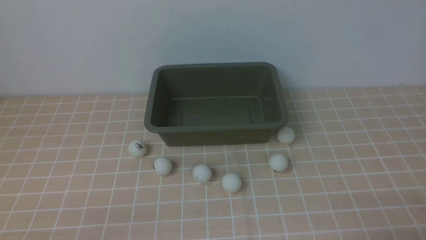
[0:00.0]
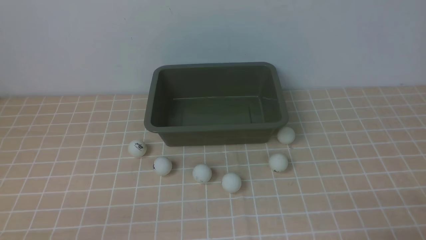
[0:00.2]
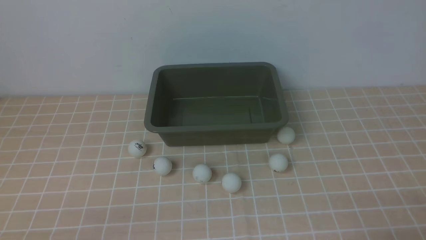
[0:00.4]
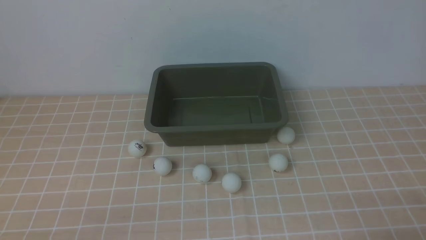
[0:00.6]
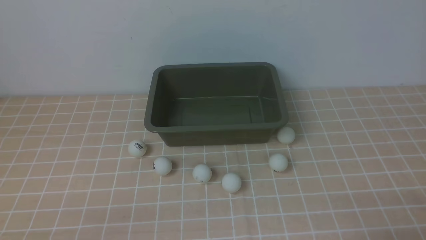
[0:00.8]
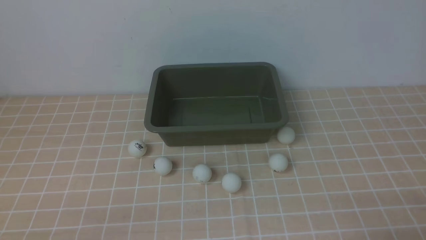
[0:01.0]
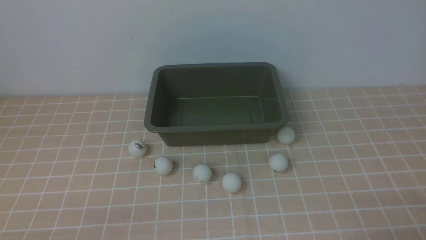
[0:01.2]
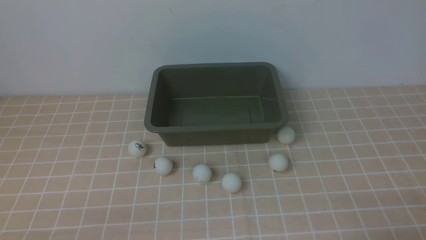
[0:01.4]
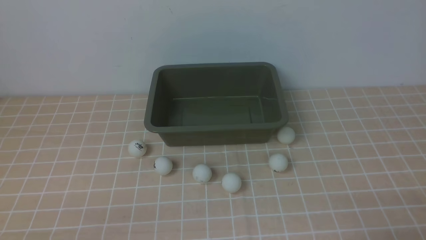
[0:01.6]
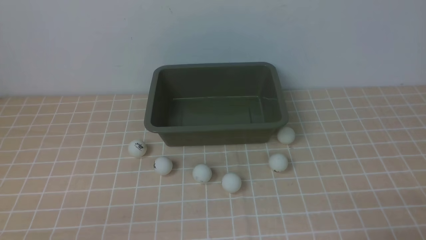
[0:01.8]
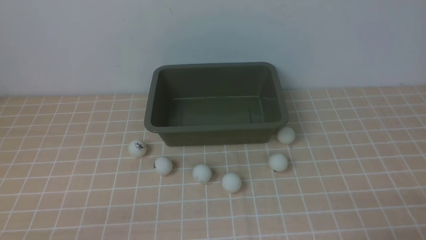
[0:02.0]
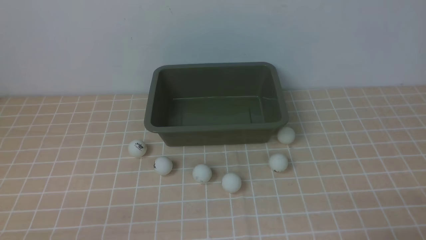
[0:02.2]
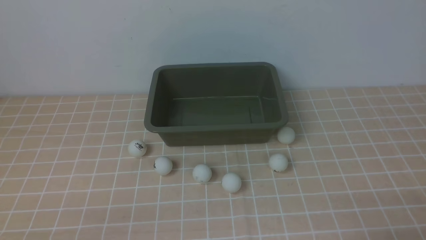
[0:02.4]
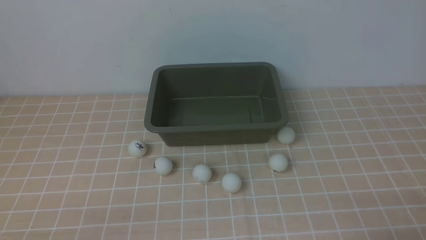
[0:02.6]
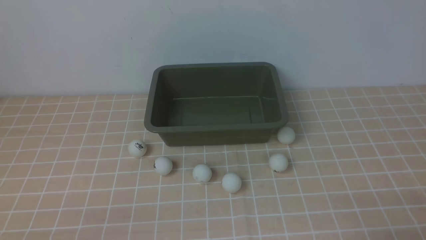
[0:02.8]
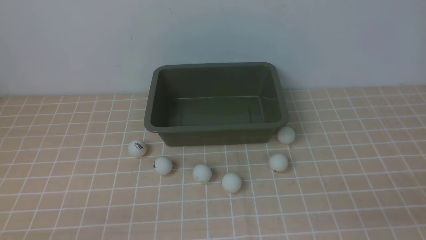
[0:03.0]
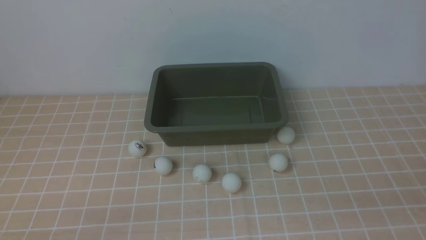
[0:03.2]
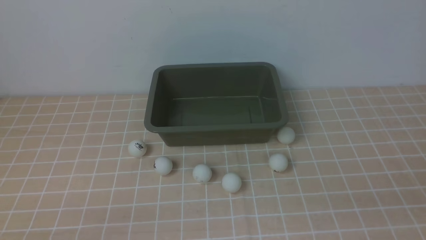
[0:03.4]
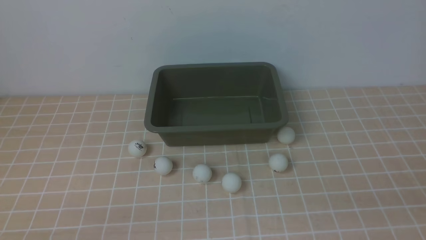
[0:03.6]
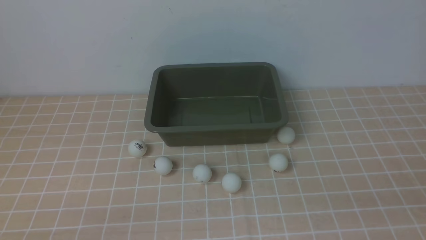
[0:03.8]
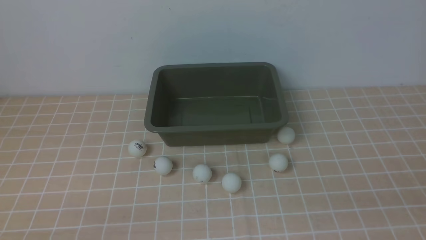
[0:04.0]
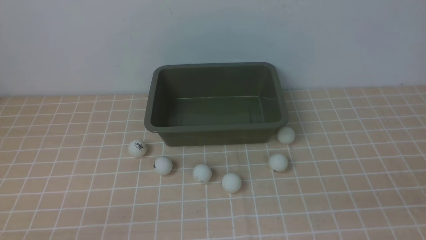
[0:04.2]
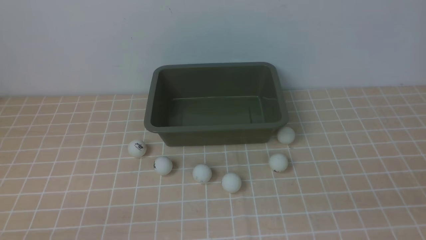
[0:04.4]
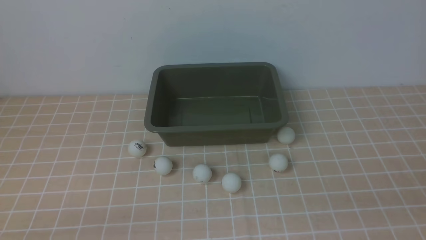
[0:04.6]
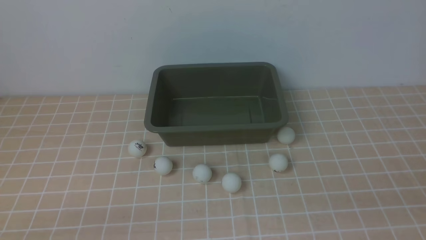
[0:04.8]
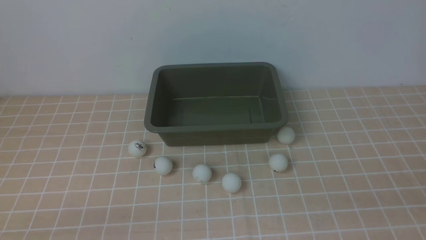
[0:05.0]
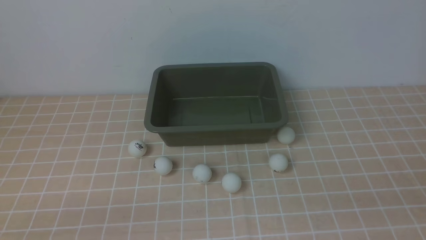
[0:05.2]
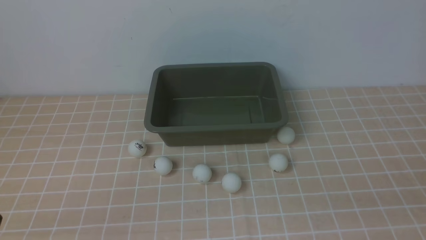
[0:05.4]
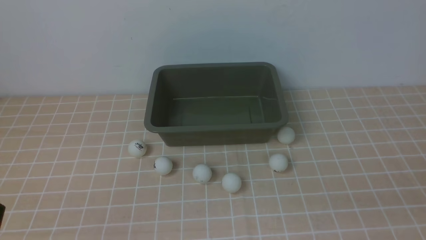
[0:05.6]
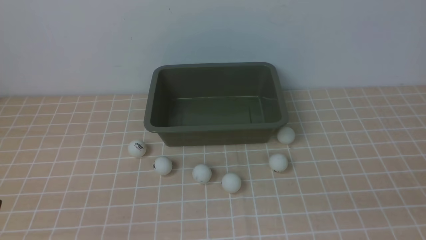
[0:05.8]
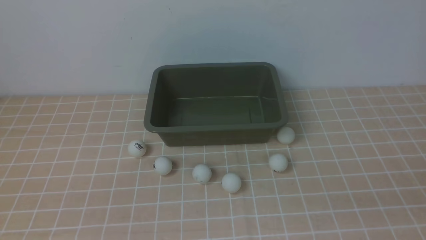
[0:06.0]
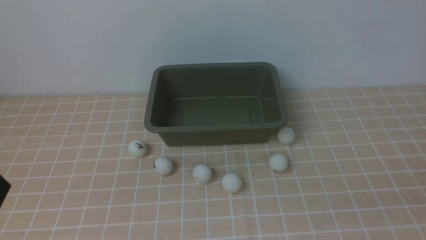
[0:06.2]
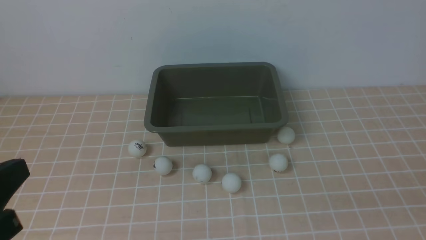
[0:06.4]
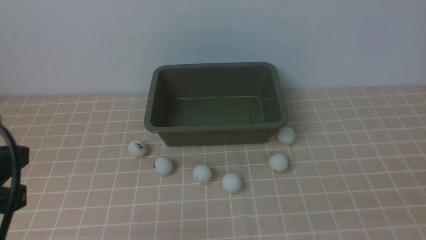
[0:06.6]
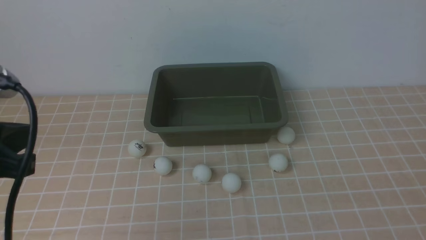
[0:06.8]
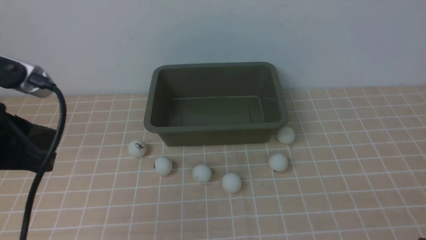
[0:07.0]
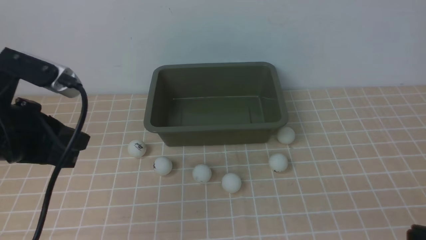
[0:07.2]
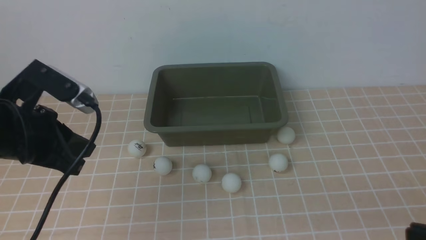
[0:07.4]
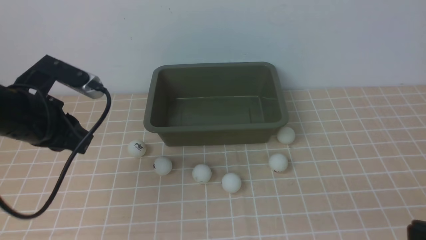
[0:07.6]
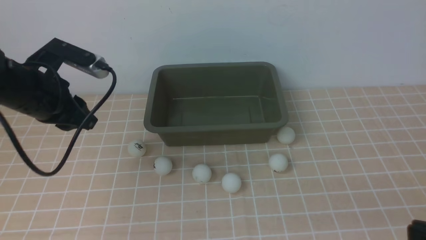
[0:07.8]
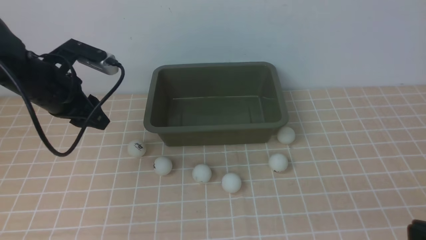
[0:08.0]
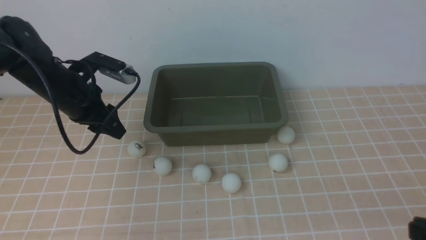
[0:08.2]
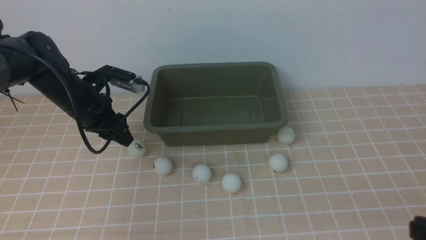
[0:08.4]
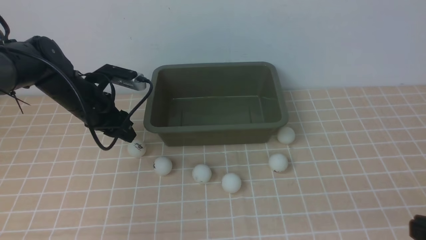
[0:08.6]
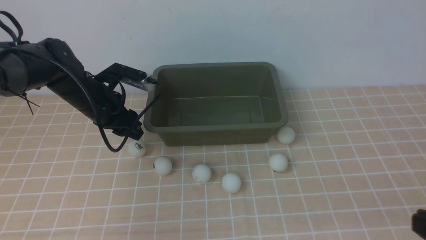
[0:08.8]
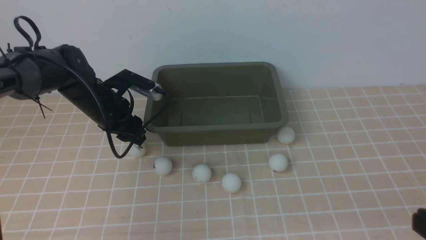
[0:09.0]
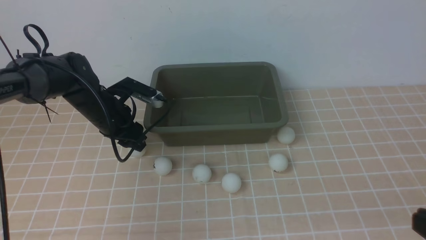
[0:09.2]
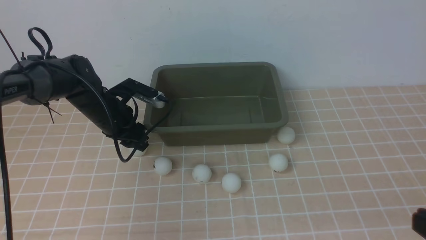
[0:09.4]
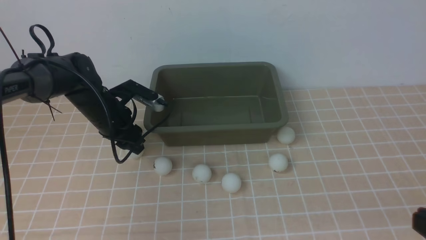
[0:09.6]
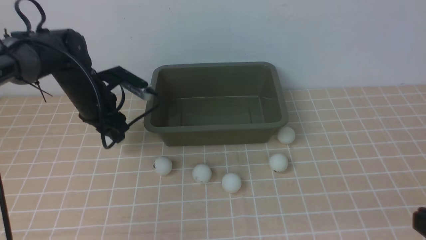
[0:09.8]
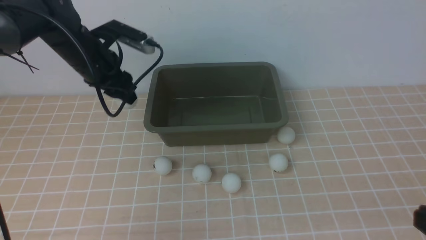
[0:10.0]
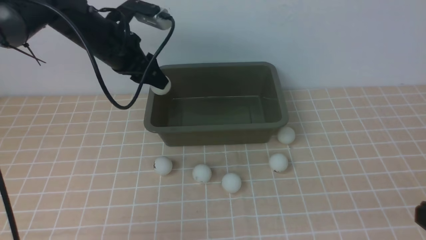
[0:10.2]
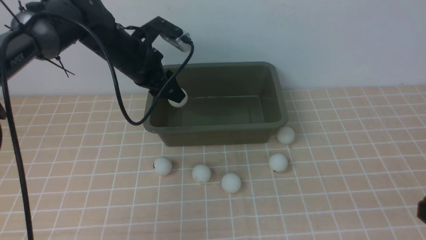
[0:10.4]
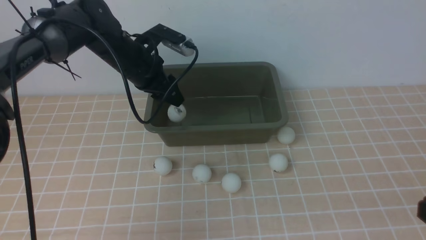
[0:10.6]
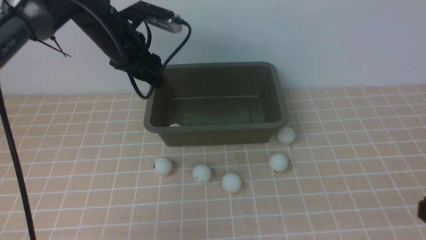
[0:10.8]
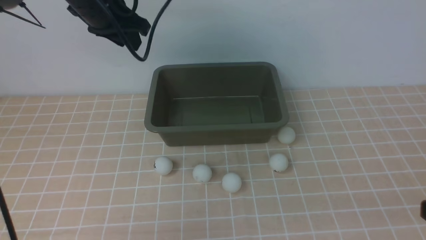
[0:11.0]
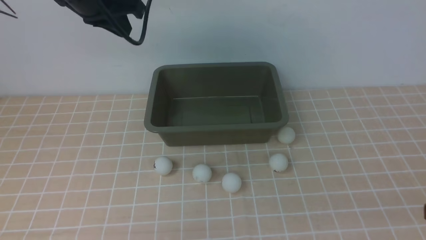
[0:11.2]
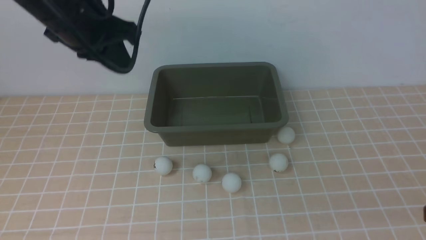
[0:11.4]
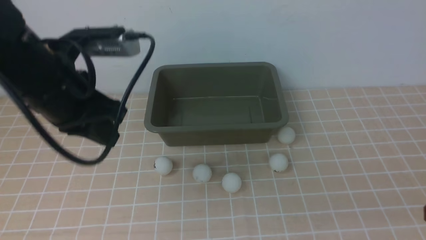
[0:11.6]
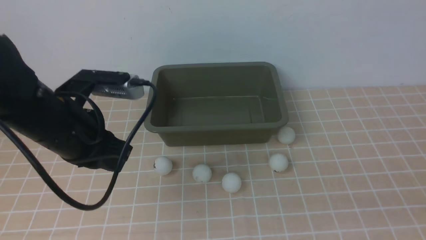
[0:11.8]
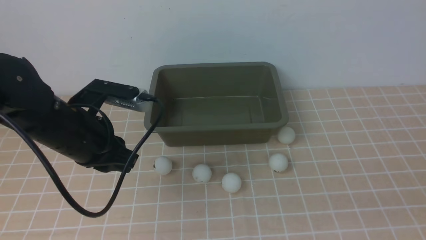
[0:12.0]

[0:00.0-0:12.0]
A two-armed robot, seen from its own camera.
Step, 0:00.0 to 0:09.6: use the left arm to clamp the table tennis ball closest to it.
Step, 0:10.0 to 0:10.6: use the left arm to put the table tennis ball into the box.
0:00.0 to 0:01.6: Neither gripper changes place.
0:06.0 to 0:07.6: The left gripper goes roughly 25 cm forward.
0:07.6 to 0:09.0: The left gripper travels forward and downward by about 15 cm, and opens its fingers.
0:09.0 to 0:10.4: The left gripper heads upward and to the right, covering some 10 cm.
0:10.4 to 0:12.0: The left gripper travels backward by about 15 cm, and closes its fingers.

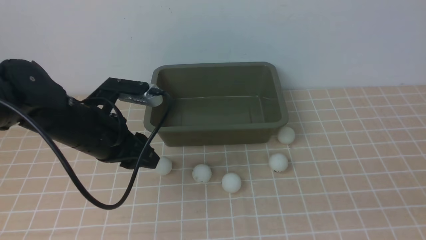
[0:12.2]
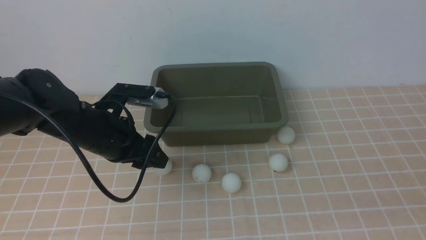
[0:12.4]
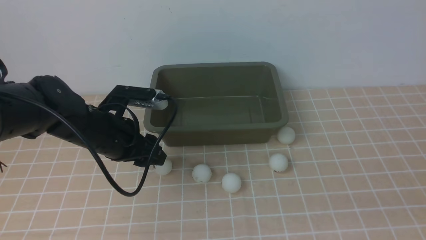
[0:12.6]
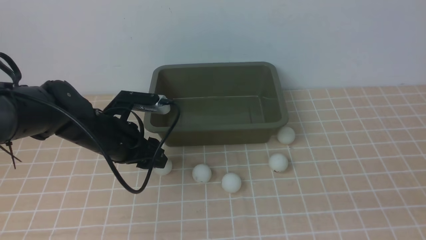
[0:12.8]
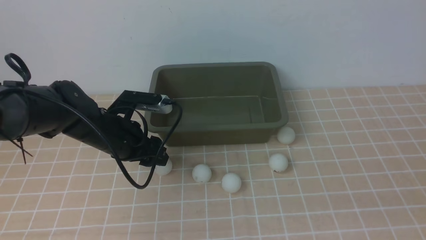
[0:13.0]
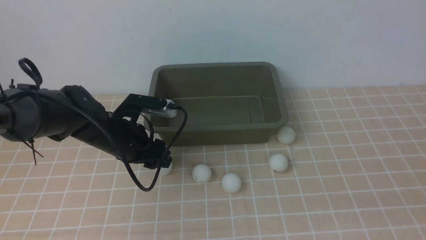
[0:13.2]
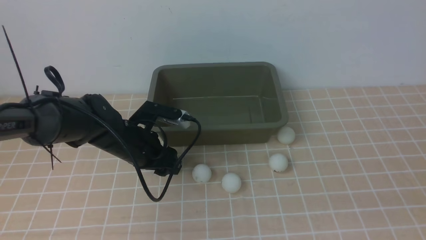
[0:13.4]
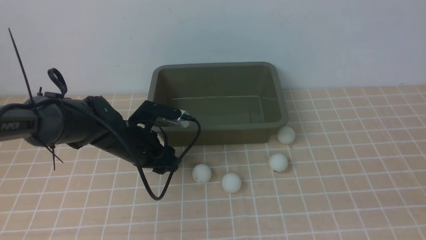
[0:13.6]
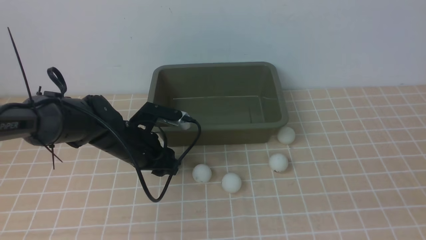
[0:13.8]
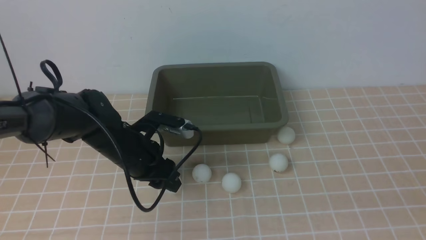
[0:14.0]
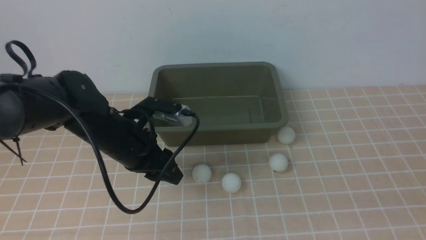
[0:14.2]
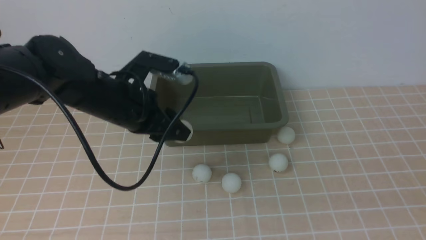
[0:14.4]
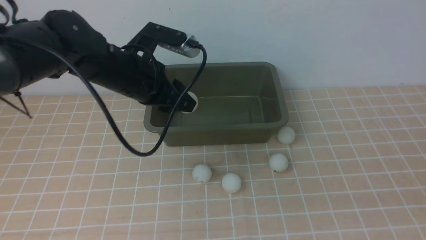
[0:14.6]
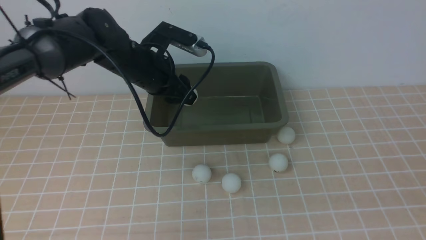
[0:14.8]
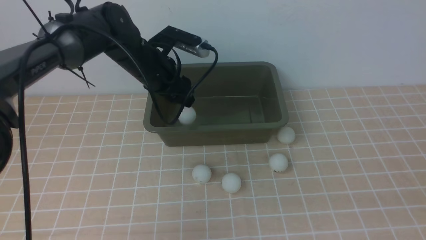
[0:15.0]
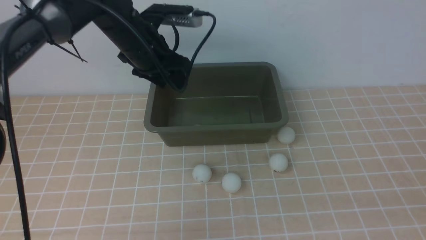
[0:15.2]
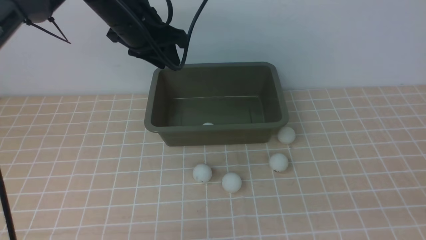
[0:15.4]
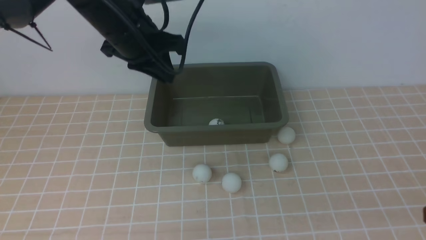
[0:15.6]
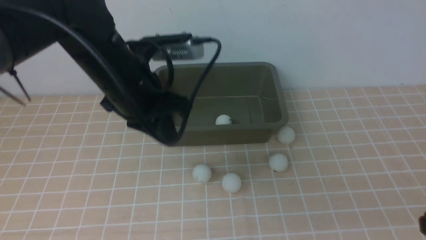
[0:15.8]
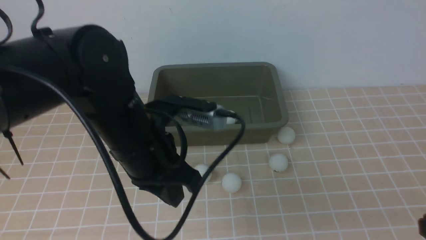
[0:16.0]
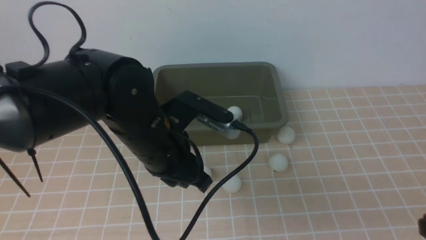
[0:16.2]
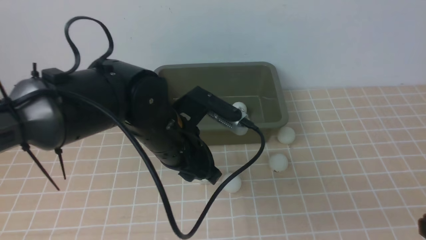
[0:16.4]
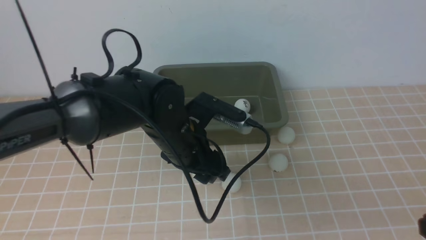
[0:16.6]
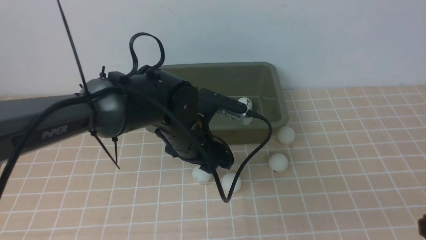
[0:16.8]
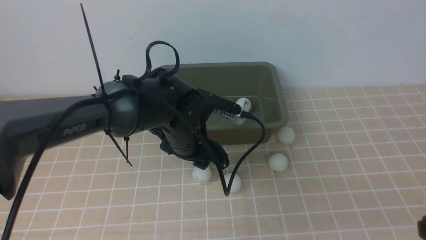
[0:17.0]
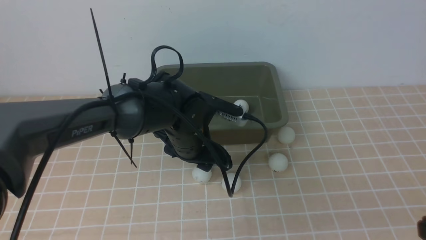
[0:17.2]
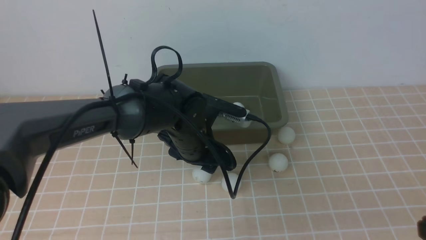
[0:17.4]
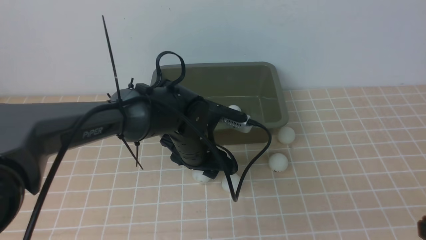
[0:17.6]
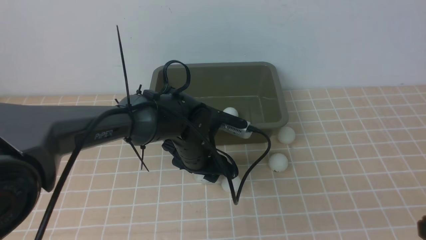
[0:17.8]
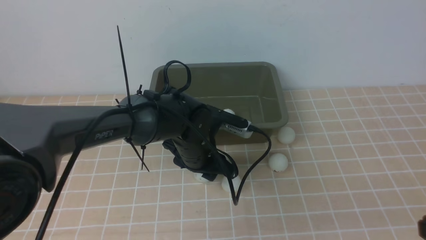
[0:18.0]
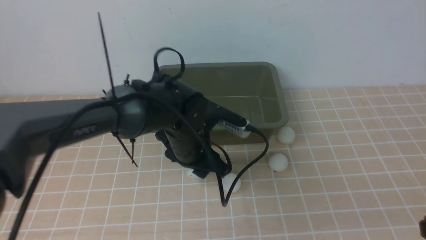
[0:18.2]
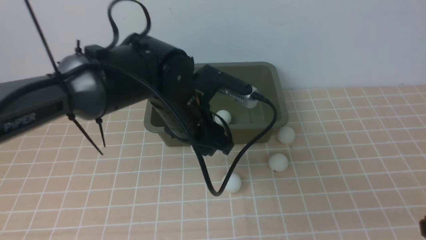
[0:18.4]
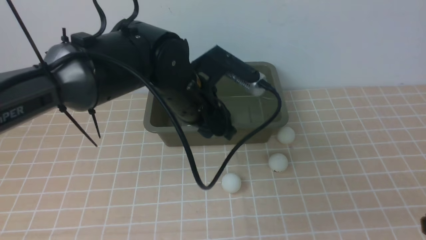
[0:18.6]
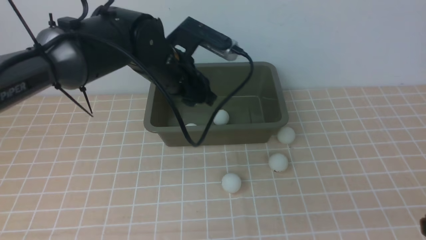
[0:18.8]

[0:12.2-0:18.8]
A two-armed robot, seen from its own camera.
Step, 0:12.2 to 0:14.2: use the left arm to clamp the table tennis ball closest to it.
Step, 0:14.4 to 0:15.2: use the left arm to put the table tennis ball into the box.
Step, 0:15.4 to 0:18.2: use the left arm to clamp the table tennis ball closest to it.
0:12.2 to 0:13.8: The left gripper shifts roughly 10 cm downward.
0:13.8 to 0:15.4: The left gripper shifts approximately 20 cm upward, and closes up.
0:15.4 to 0:17.2: The left gripper moves downward, to the right and backward, roughly 20 cm, and opens its fingers.
0:17.2 to 0:18.8: The left gripper goes about 10 cm upward.
